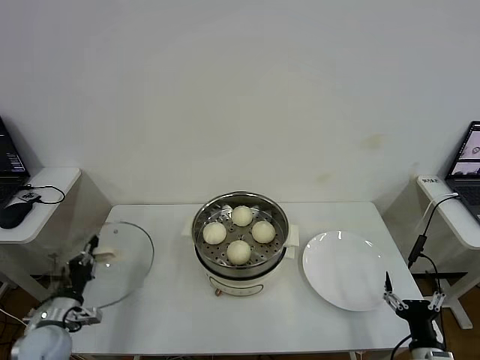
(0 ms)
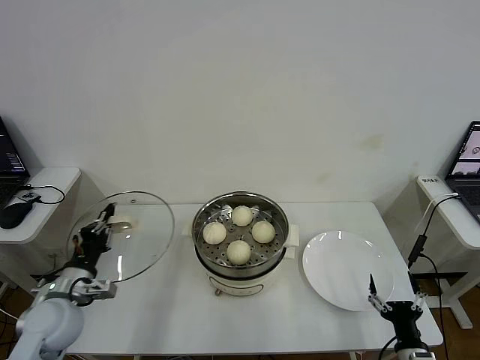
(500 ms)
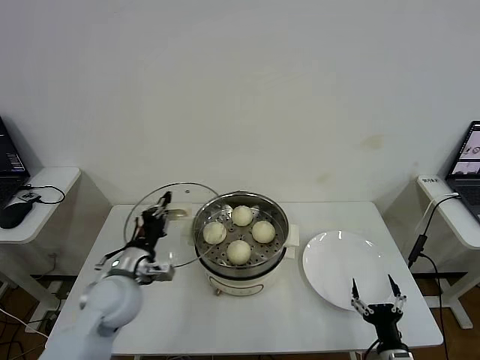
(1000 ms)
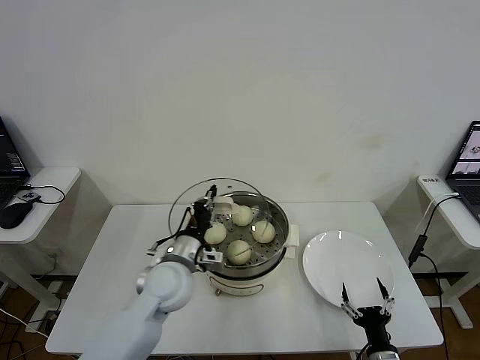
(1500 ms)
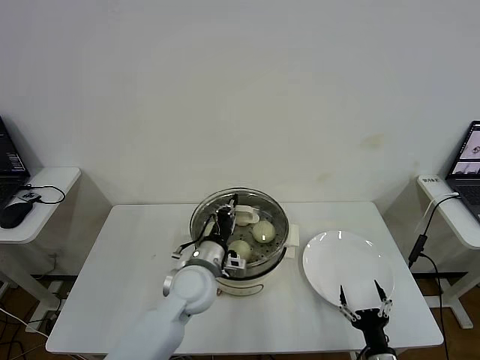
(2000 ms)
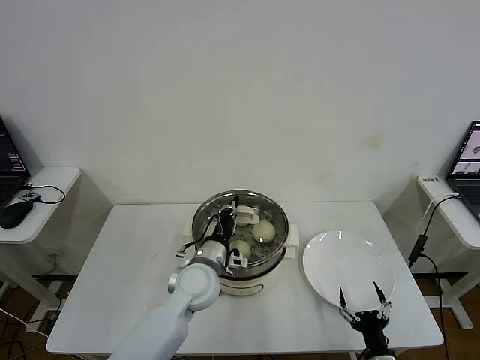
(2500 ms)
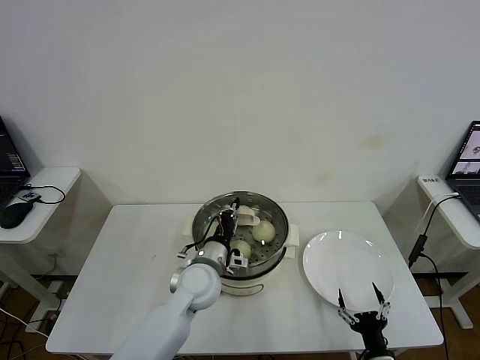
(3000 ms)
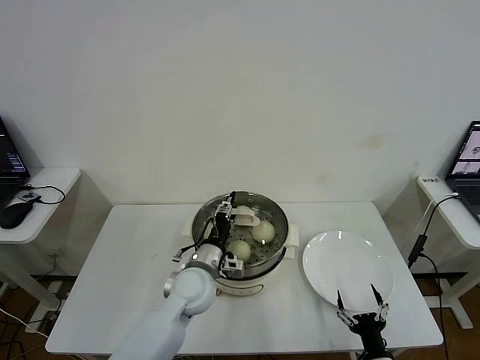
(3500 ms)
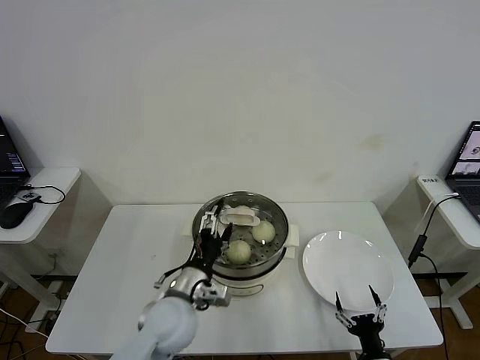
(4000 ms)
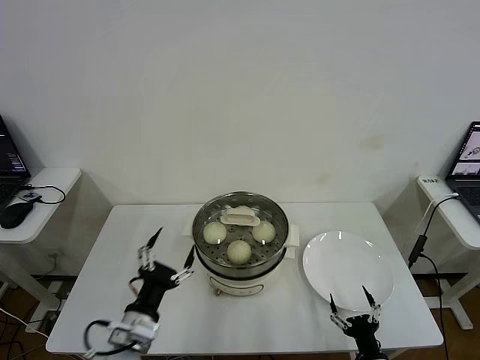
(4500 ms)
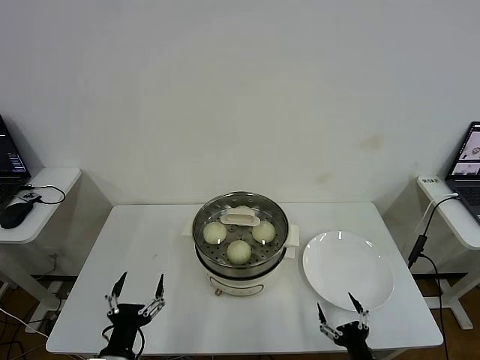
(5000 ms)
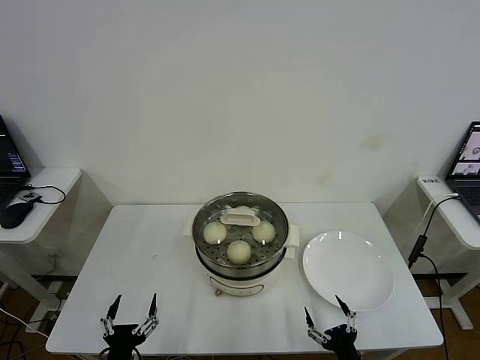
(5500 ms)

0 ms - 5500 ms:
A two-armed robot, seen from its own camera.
Step, 0 ms - 3500 ms: Place the pot lid on the steamer with left gripper.
0 ms - 2000 ms: The left gripper moves to the right, some 30 cm. Meanwhile the right gripper goes about 5 cm to the left.
2000 ms - 3500 ms: The left gripper opens up.
3500 ms - 5500 ms: The right gripper shifts by about 5 cm; the left gripper moves backward and to the left, approximately 30 cm, and opens.

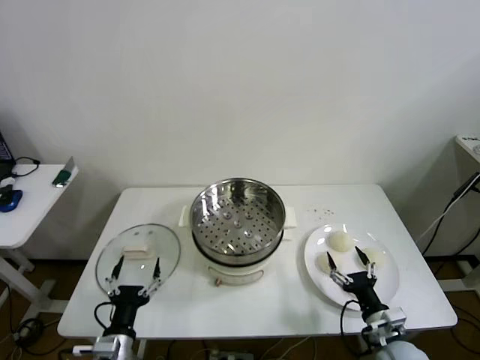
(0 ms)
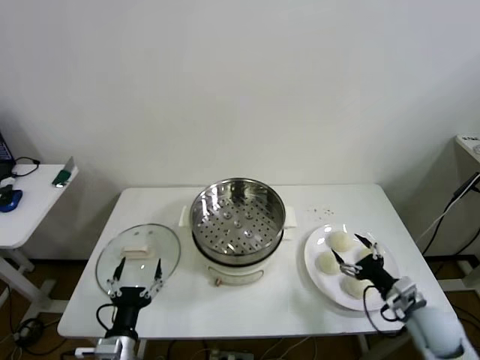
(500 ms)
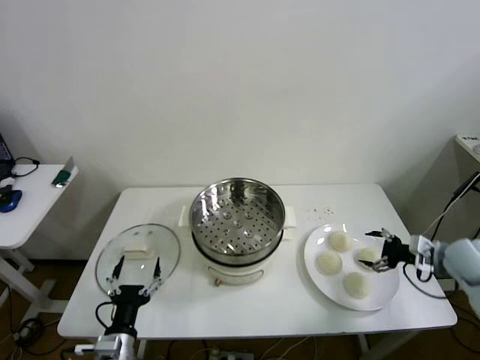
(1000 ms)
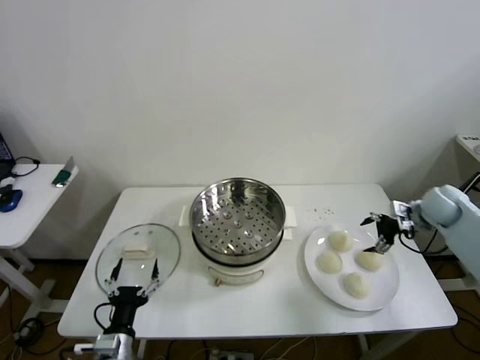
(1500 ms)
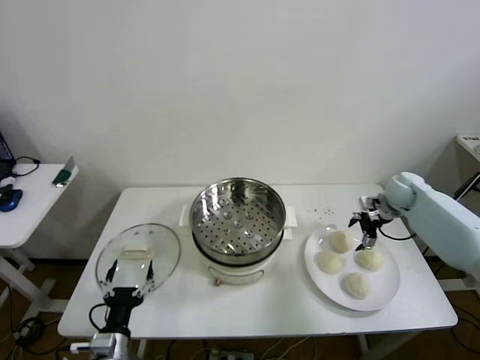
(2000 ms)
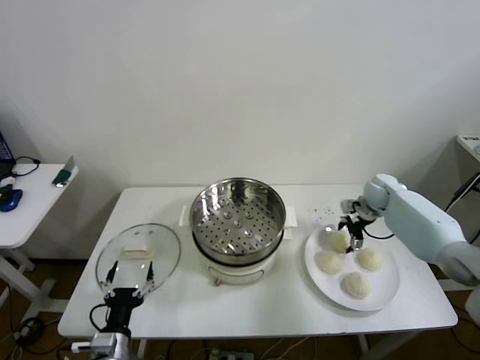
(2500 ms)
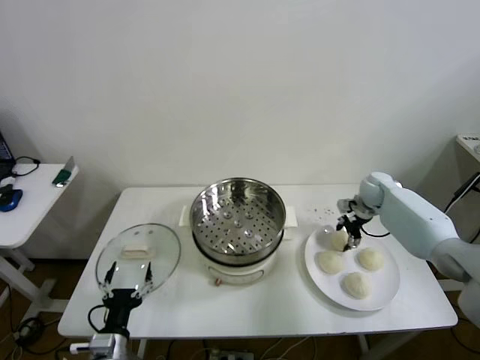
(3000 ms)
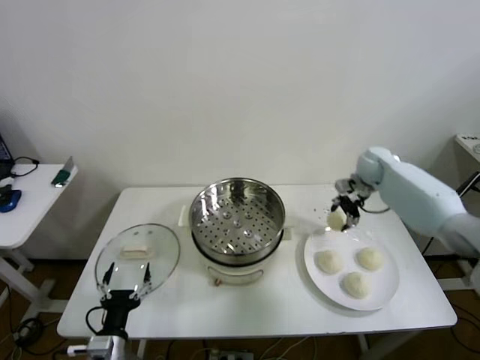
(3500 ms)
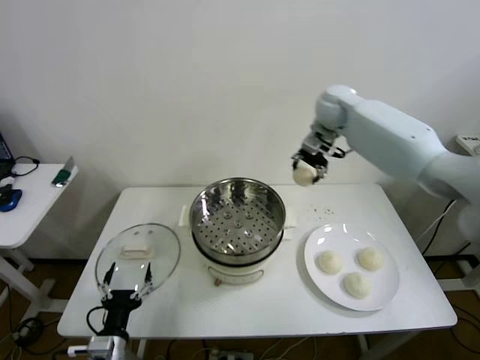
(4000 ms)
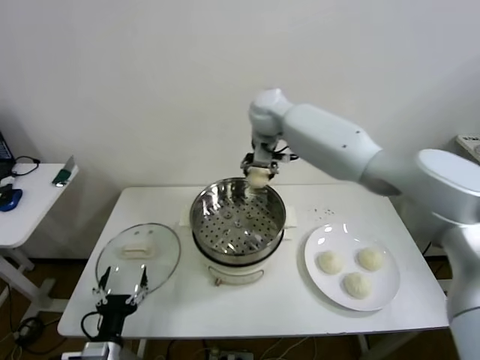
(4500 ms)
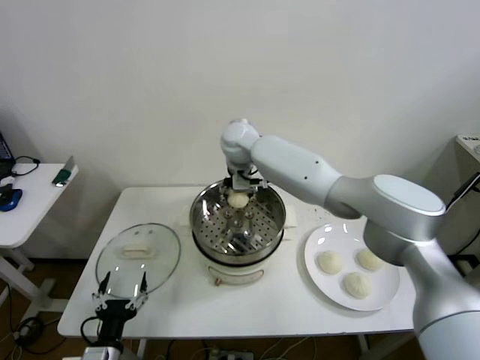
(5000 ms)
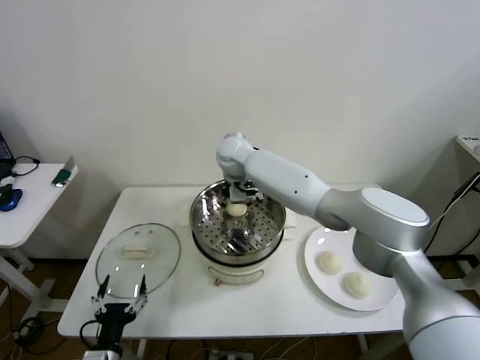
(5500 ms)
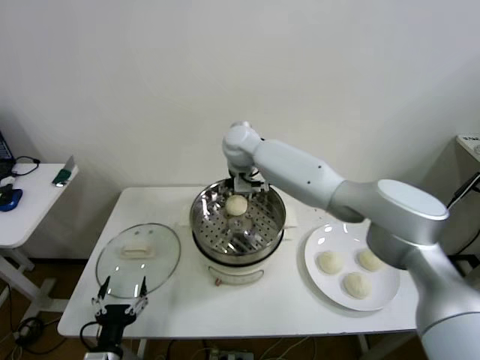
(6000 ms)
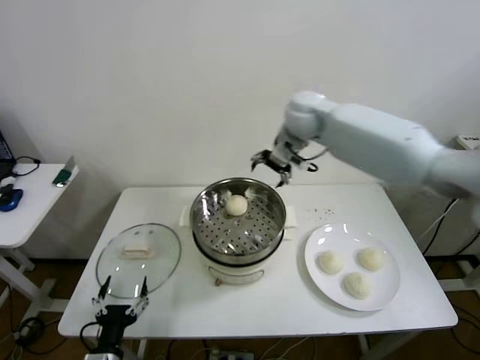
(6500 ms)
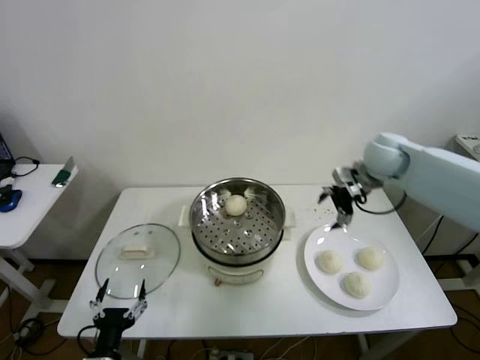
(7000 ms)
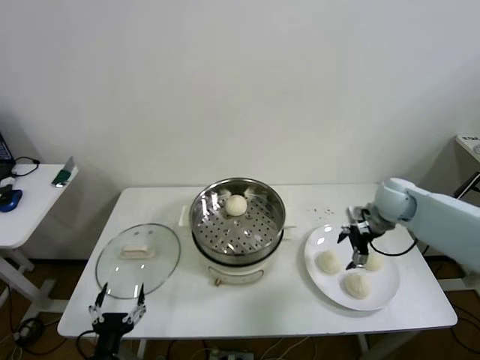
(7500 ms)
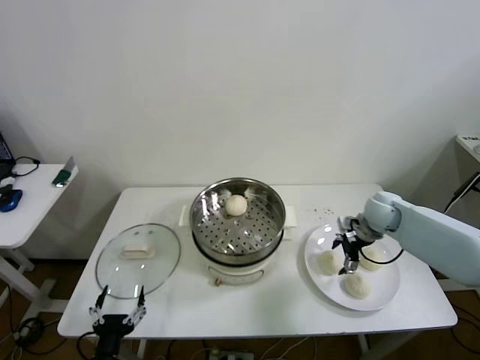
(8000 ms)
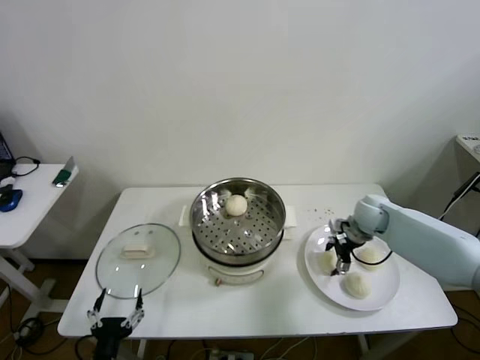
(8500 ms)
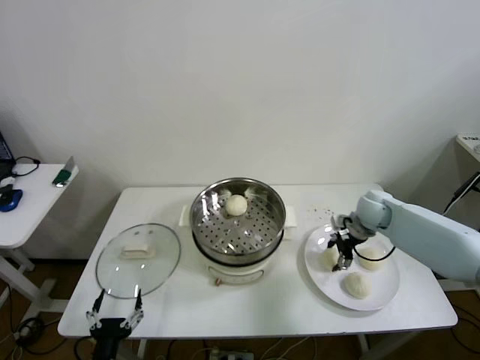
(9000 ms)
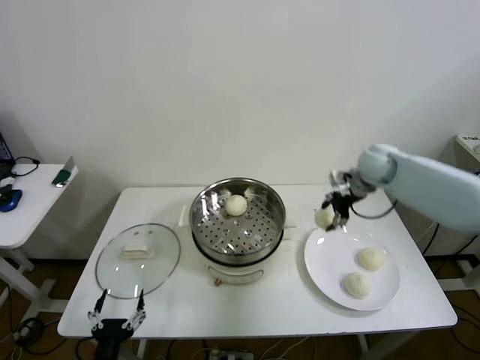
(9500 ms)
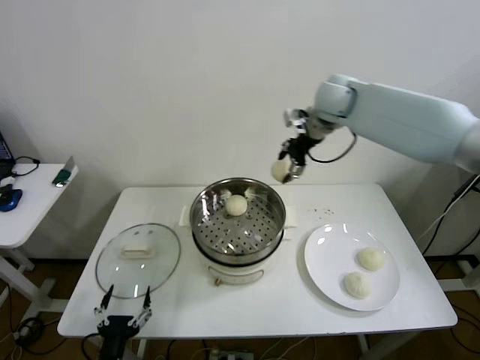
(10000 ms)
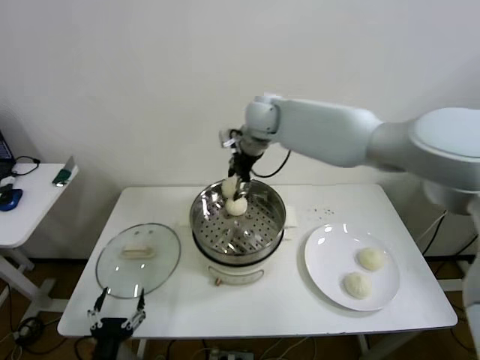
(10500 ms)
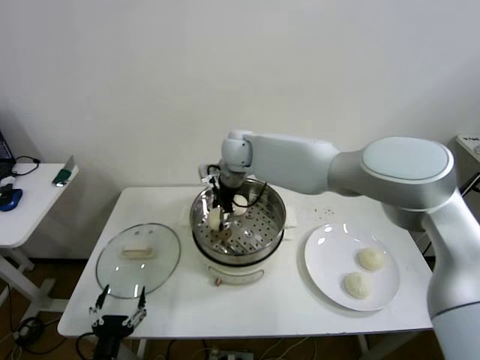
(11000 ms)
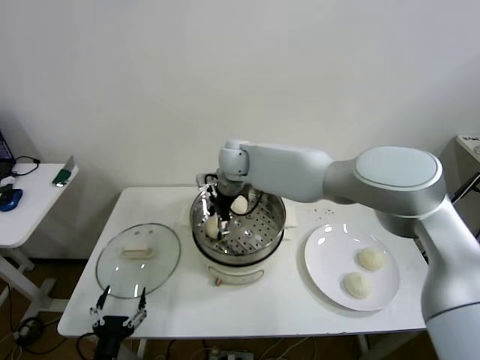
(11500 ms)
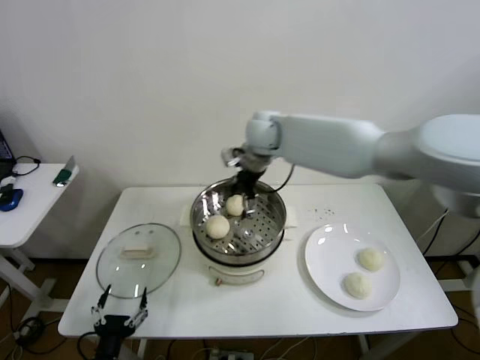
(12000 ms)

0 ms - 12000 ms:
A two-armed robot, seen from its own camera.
Step, 0 ms - 3000 ms: Grasp the baozi in the plate with right gripper.
Step, 3500 ms - 6000 ms: Place the baozi on the steamer with right gripper.
Step, 6500 ms - 9000 ms: Grasp the baozi in the plate with right gripper.
2000 ms - 4000 ms: The right gripper travels to the left and upward by some 35 cm.
4000 ms - 6000 ms: The right gripper moves to the left and downward, about 20 cm.
6000 ms - 8000 ms: The right gripper travels to the right and downward by some 40 cm.
8000 ms - 10000 ms: The right gripper shifts some 35 cm upward and to the left.
10000 ms - 12000 ms: The right gripper shifts approximately 10 cm to the left and downward.

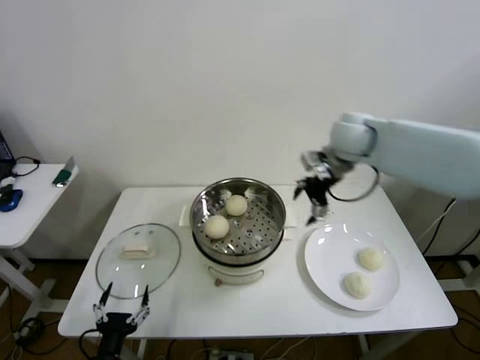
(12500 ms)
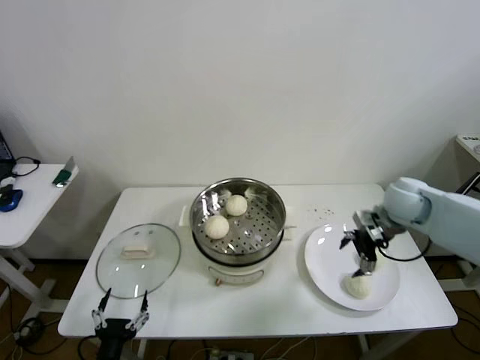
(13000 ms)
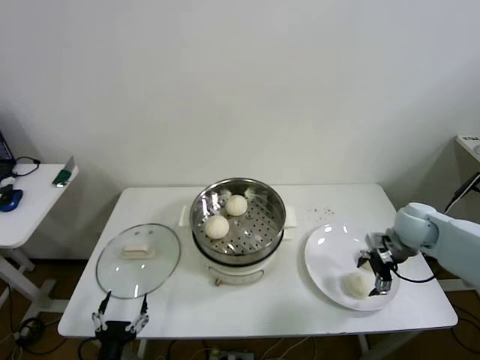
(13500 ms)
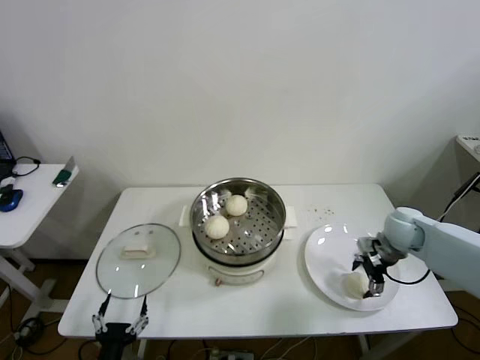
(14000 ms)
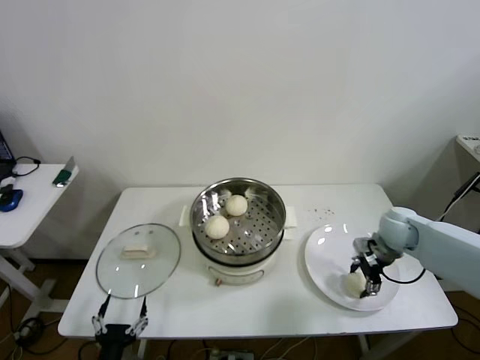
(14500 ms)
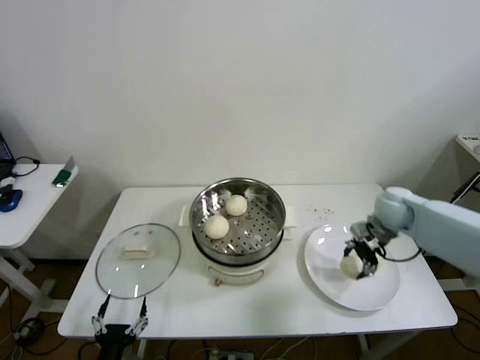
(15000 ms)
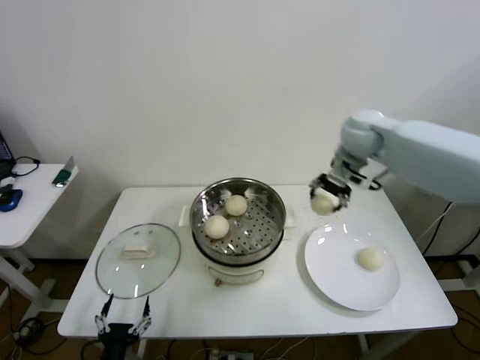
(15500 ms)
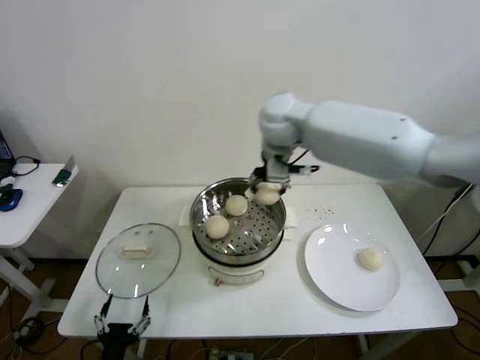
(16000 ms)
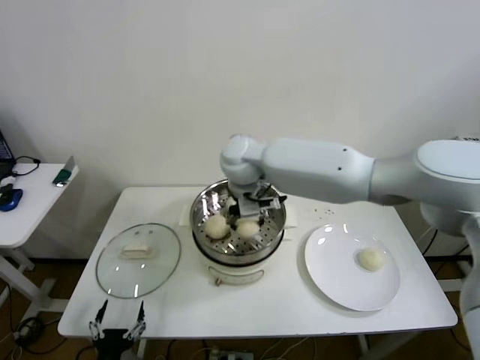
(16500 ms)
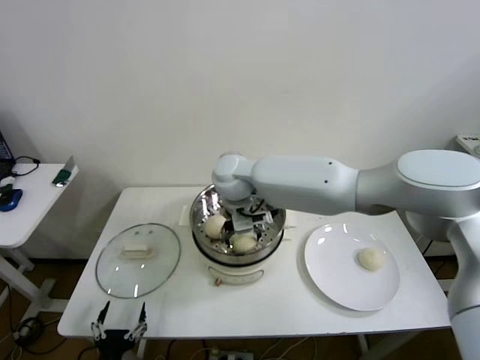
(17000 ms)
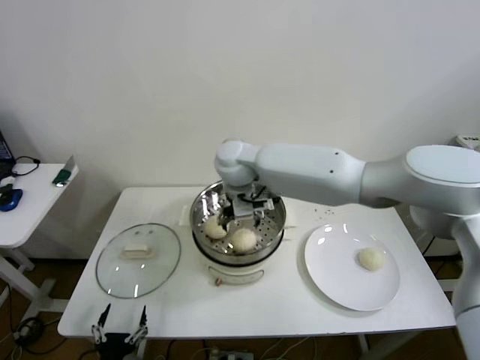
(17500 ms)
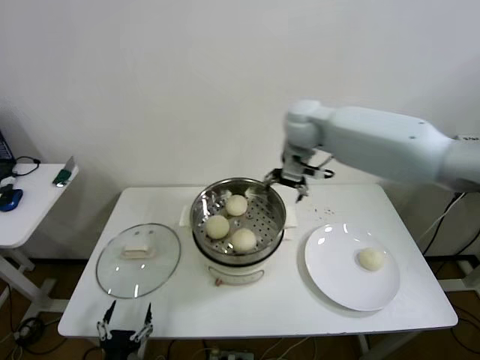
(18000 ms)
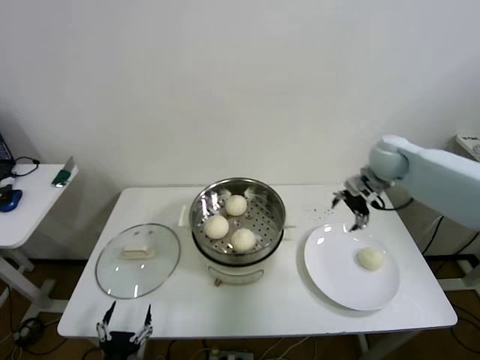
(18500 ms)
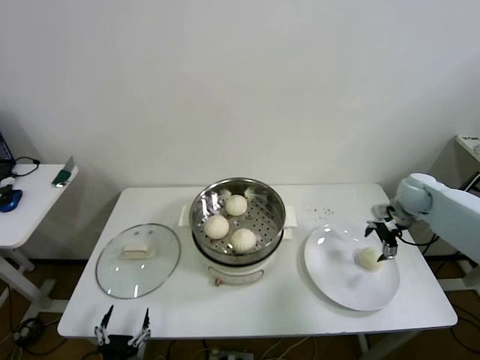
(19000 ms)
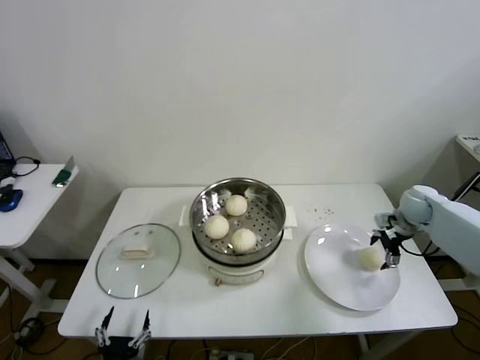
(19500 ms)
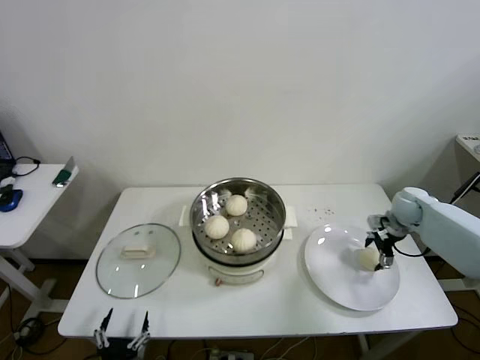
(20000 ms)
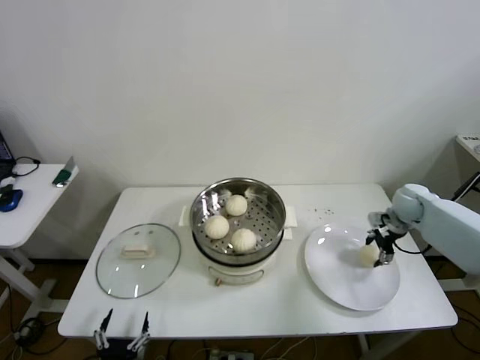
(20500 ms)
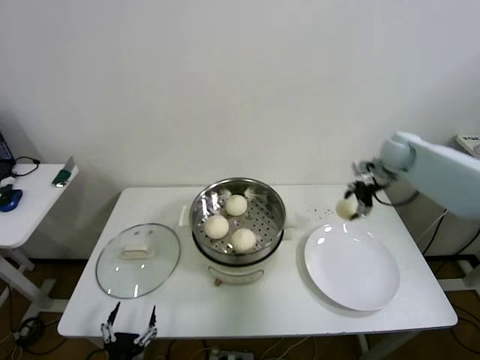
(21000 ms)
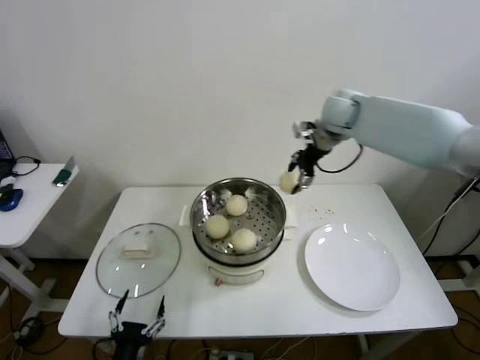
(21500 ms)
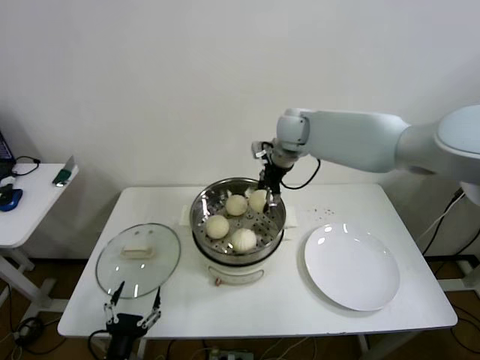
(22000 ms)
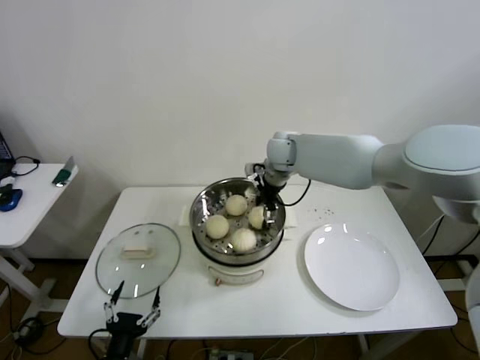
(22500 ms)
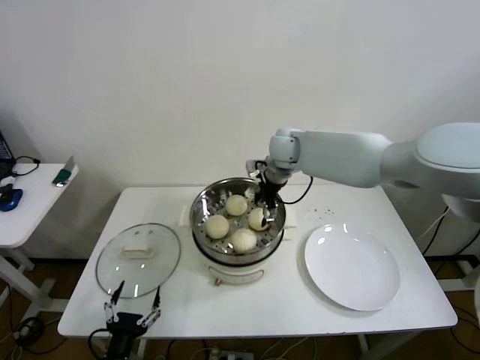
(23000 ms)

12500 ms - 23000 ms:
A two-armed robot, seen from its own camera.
Step, 12500 ms - 14500 ms: Grasp the baozi in the plate with right gripper.
Step, 15000 ms - 17000 ms: Place the baozi on the steamer with right gripper.
Step, 18000 ms - 20000 ms: Grasp the baozi in the plate with right gripper.
12500 ms - 14500 ms: The right gripper goes approximately 25 cm downward and to the right.
14500 ms - 16500 ms: The right gripper shifts about 40 cm to the left and upward.
16500 ms - 19000 ms: The right gripper is displaced to the right by roughly 40 cm.
19000 ms - 21000 ms: The right gripper goes roughly 15 cm upward, forward and to the left.
21000 ms - 23000 ms: The right gripper goes some 25 cm to the left.
